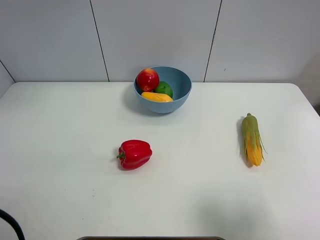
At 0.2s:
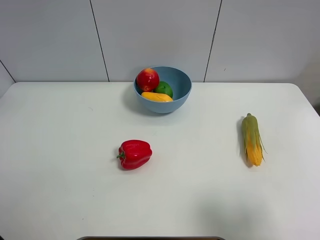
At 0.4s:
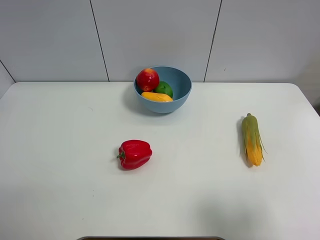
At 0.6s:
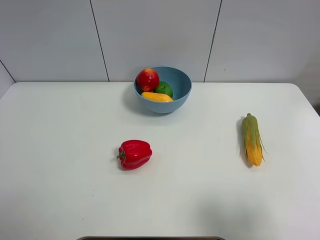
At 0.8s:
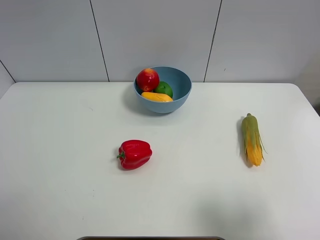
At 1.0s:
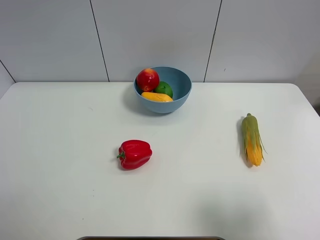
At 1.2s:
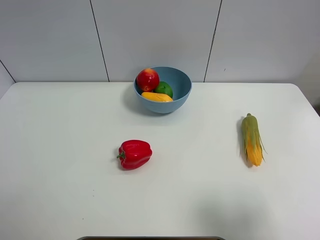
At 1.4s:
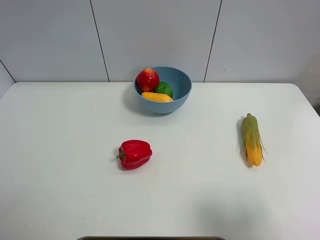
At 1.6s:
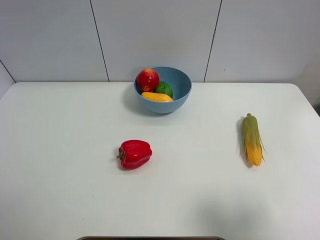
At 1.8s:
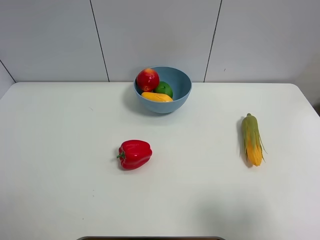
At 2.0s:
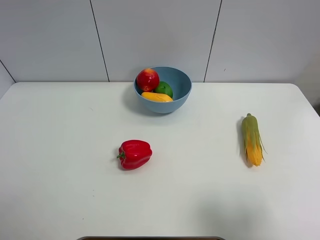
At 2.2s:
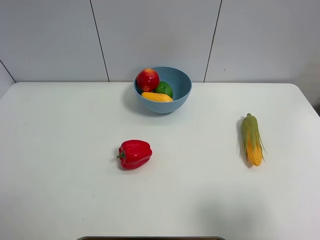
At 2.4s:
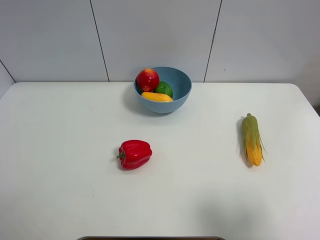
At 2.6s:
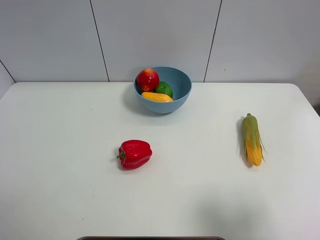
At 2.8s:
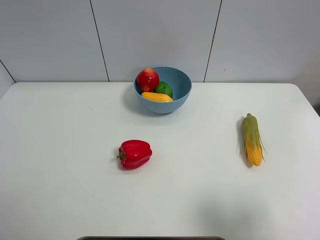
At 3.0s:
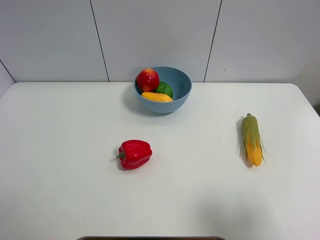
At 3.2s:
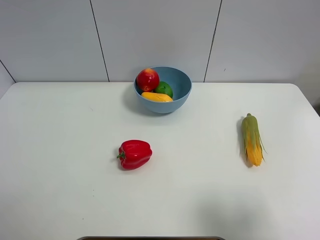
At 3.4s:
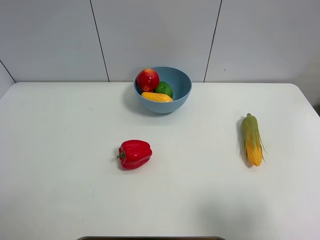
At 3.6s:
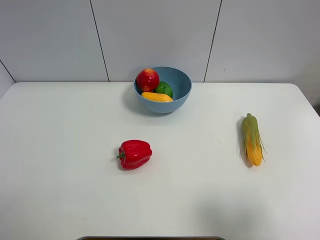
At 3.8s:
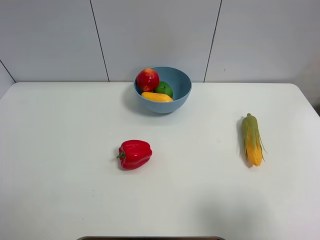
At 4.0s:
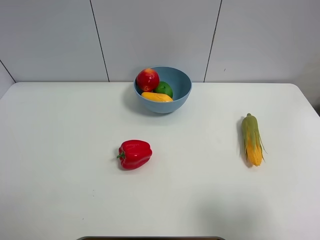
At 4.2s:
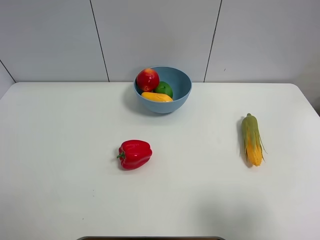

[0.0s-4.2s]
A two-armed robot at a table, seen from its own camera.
Task of the whole recording: Put the three fruits on the table into a bowl.
0.0s to 1.4s: The left gripper heads backward and to the left, covering approximately 30 cm.

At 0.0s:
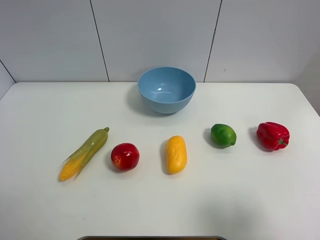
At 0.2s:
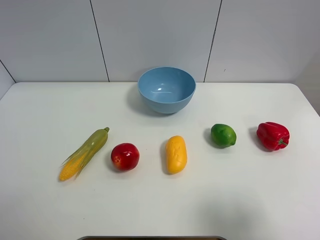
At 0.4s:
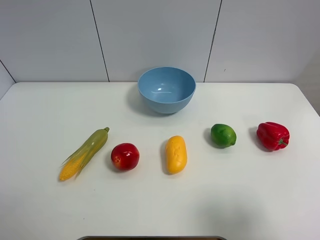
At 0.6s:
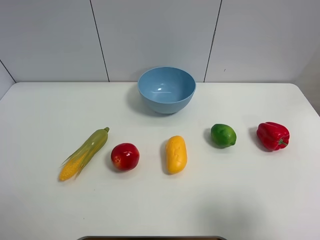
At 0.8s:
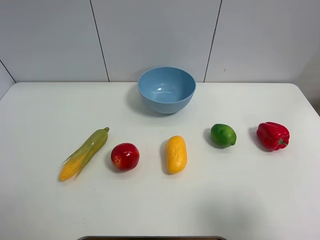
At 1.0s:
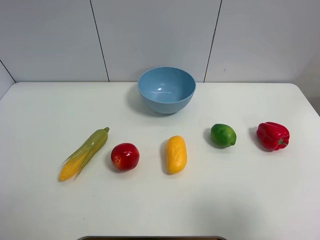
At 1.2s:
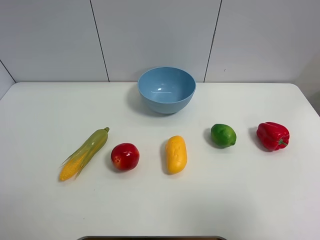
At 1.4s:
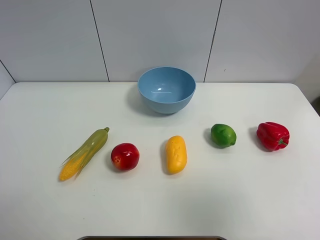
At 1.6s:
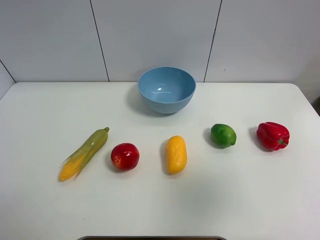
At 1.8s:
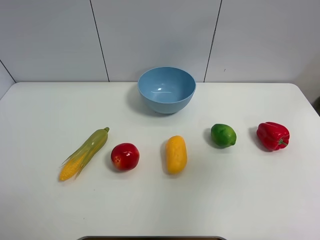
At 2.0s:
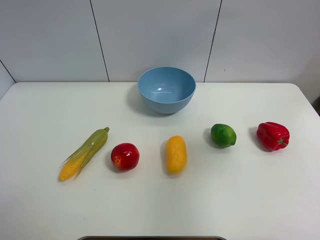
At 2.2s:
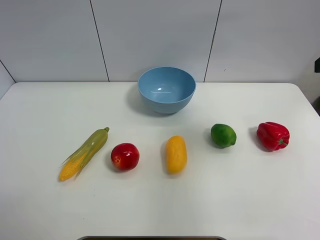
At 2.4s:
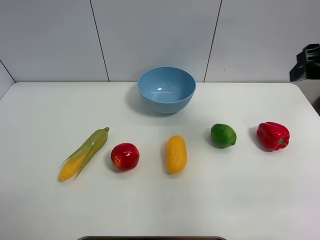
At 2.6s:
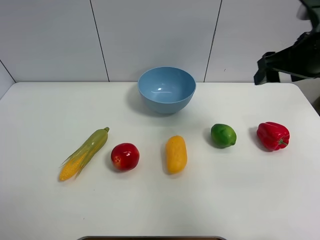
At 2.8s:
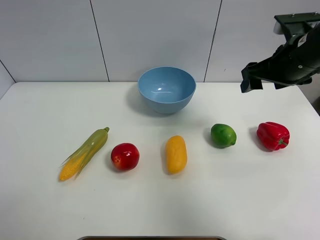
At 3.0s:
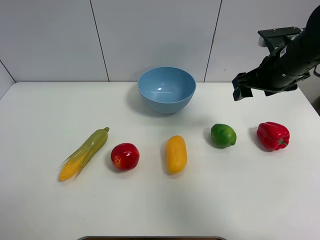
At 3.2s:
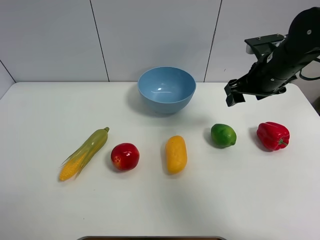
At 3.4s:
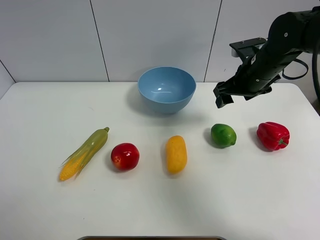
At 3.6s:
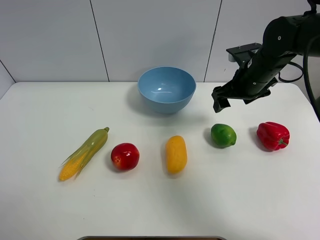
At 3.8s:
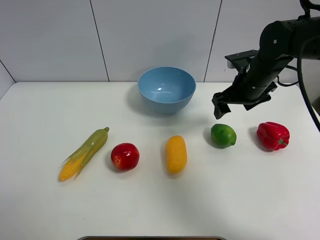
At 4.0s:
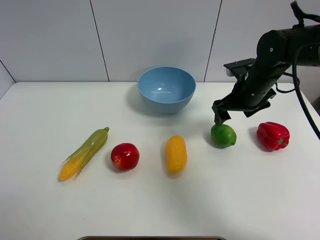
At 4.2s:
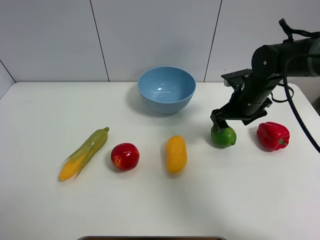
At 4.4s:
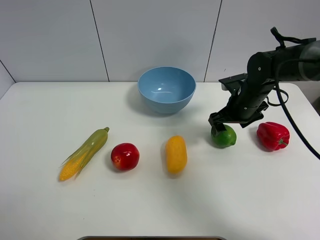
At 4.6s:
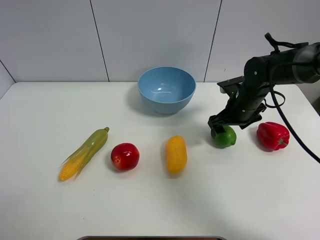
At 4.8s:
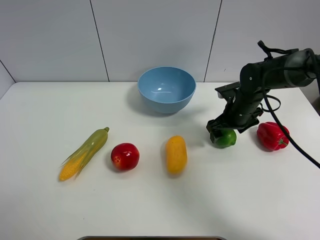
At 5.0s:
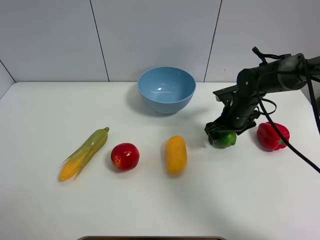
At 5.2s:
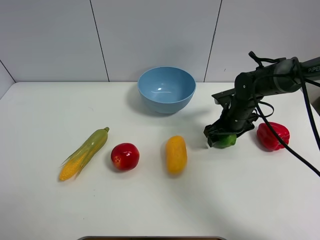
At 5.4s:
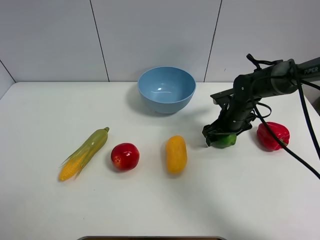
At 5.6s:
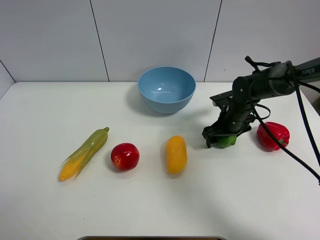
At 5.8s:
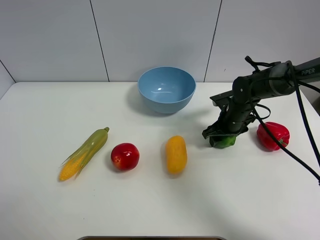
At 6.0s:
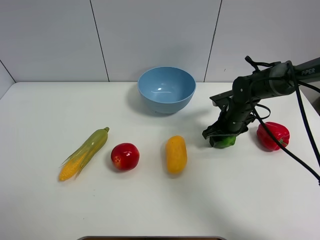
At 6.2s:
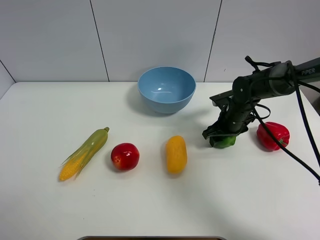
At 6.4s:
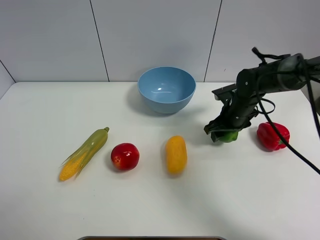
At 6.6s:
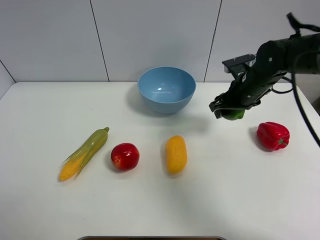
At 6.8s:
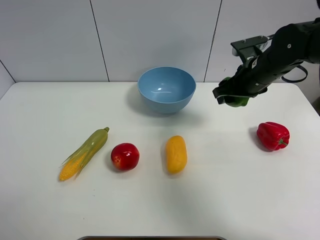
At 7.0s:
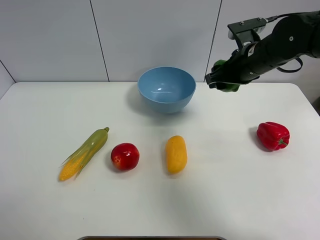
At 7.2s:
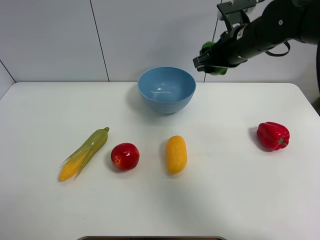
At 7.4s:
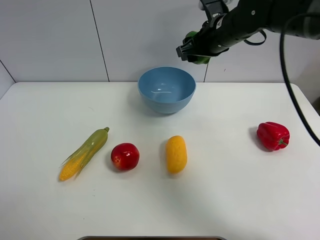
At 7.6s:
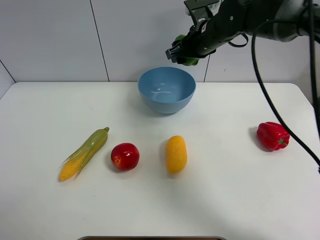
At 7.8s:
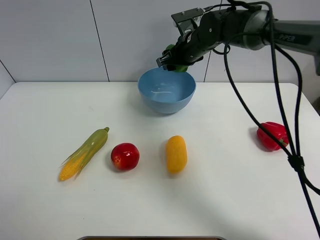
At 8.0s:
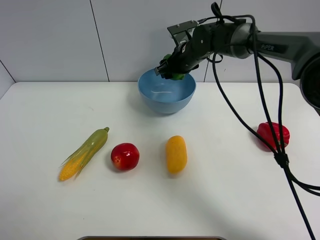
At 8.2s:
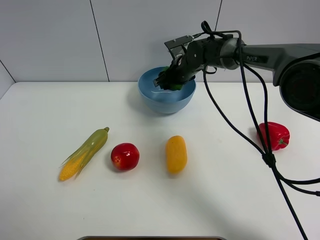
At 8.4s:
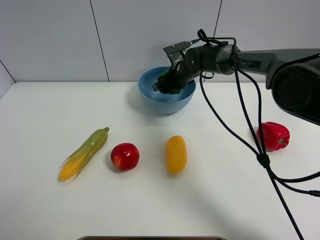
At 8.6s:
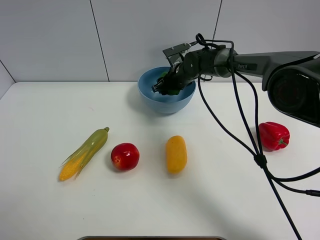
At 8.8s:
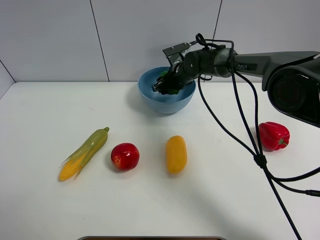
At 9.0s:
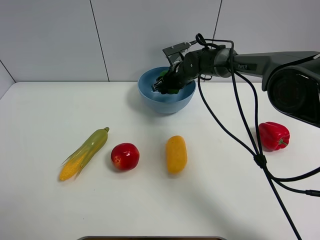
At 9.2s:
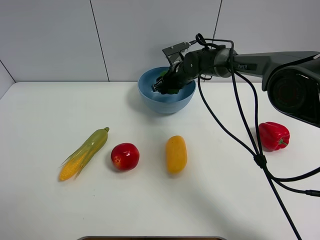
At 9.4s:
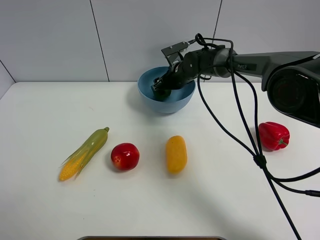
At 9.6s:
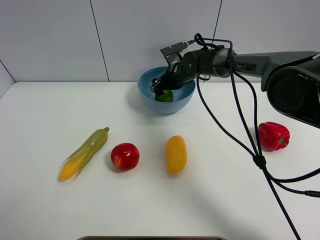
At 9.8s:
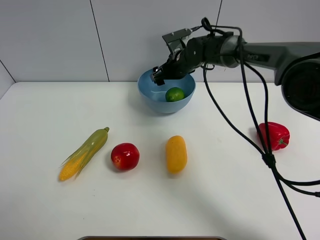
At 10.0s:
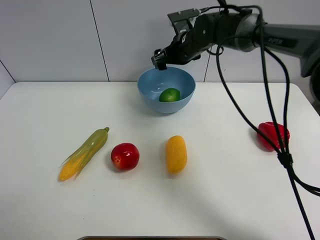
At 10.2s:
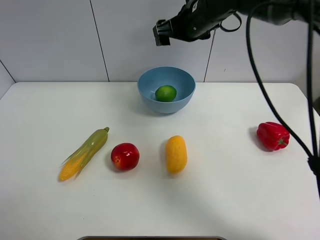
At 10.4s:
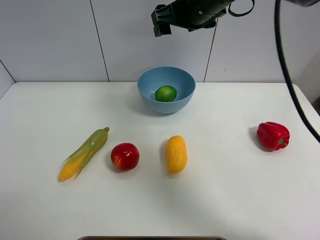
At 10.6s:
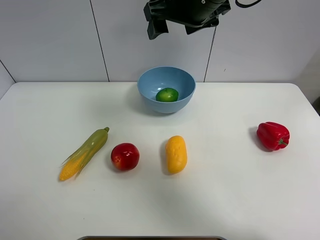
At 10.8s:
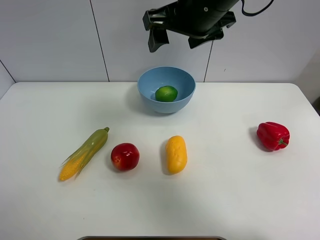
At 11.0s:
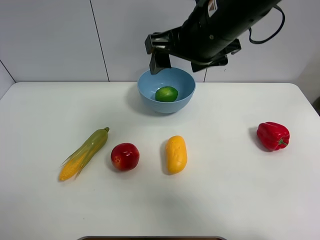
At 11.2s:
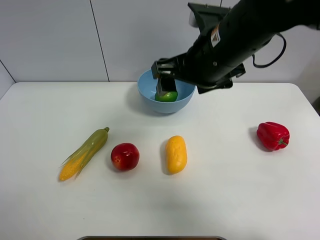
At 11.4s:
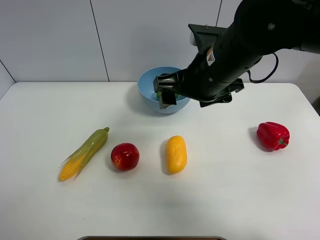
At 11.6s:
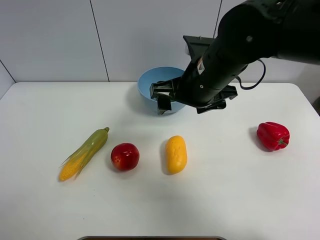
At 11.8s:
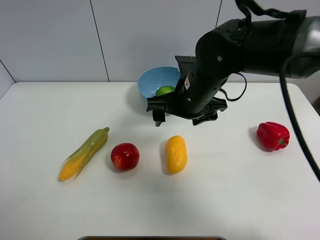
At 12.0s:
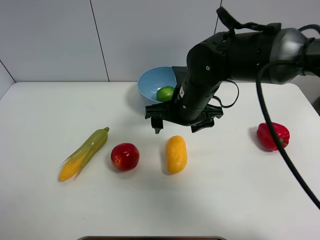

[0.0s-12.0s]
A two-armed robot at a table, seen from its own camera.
Task of the whole recording: Put the three fruits on the table into a bowl.
Step, 0.0s to 5.8s: Grasp the green lemon with right gripper.
Step, 6.0s to 9.6s: Place the green lemon in the blue bowl with right gripper.
0.0s to 1.6s: The right gripper travels upward and forward by about 10 cm.
1.6s to 3.0s: The right gripper travels forward and downward by about 30 cm.
3.0s to 4.4s: The right gripper moves downward, roughly 10 cm.
4.4s to 6.0s: The right gripper is displaced downward by some 5 cm, and closes.
6.0s to 7.6s: The right gripper travels upward and to the left by about 20 cm.
7.6s to 9.0s: The right gripper moves downward and forward, some 15 cm.
9.0s to 10.4s: The right gripper moves upward and backward, approximately 25 cm, and opens its fingers.
10.4s to 12.0s: The right gripper shifts roughly 15 cm downward and backward.

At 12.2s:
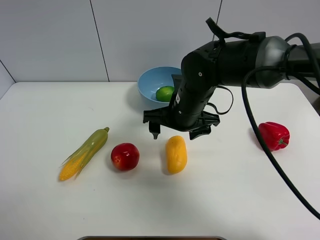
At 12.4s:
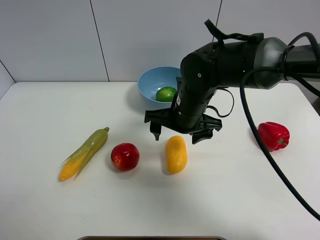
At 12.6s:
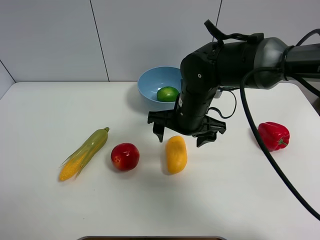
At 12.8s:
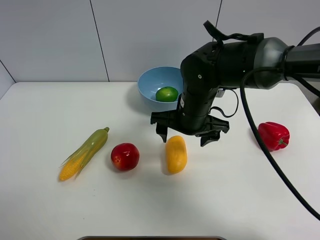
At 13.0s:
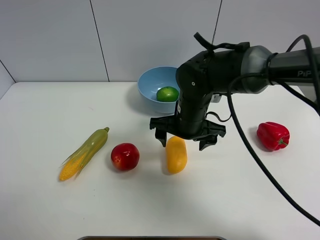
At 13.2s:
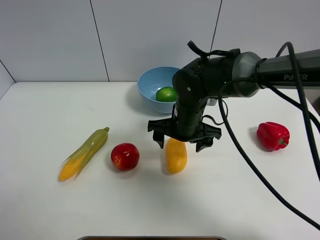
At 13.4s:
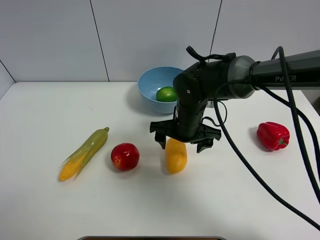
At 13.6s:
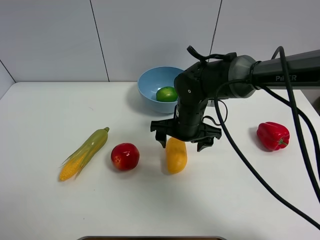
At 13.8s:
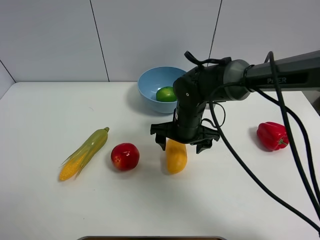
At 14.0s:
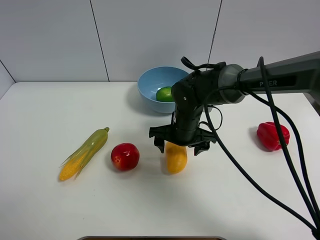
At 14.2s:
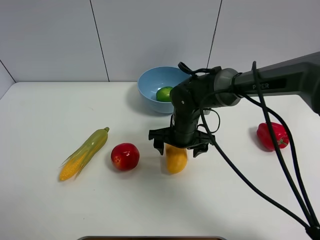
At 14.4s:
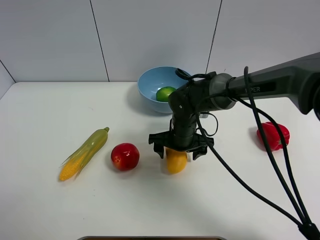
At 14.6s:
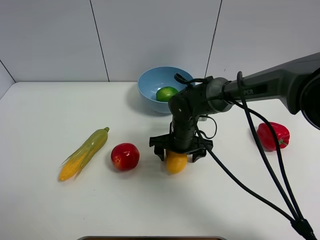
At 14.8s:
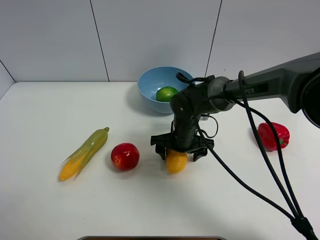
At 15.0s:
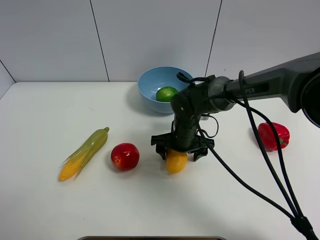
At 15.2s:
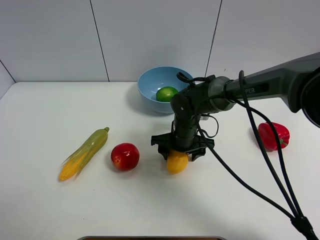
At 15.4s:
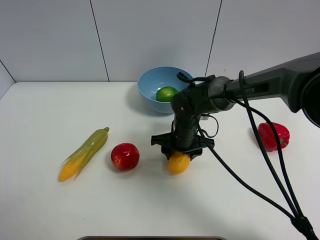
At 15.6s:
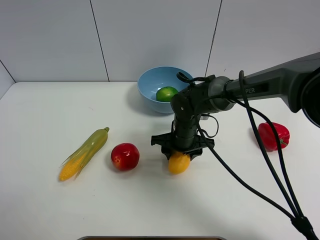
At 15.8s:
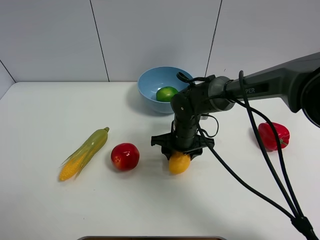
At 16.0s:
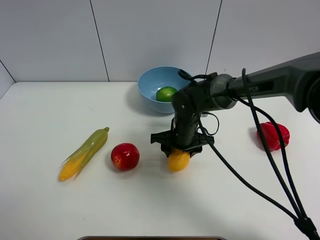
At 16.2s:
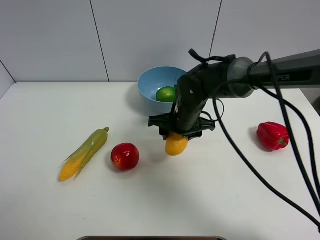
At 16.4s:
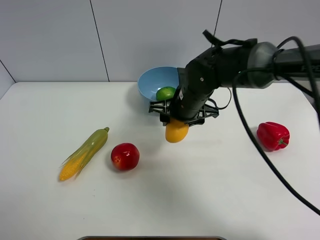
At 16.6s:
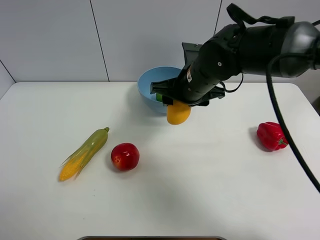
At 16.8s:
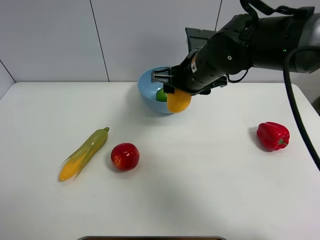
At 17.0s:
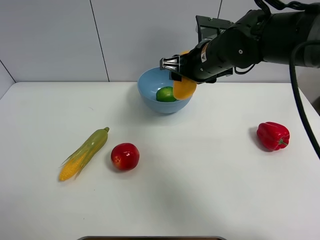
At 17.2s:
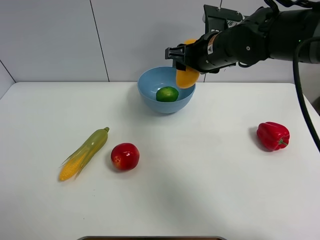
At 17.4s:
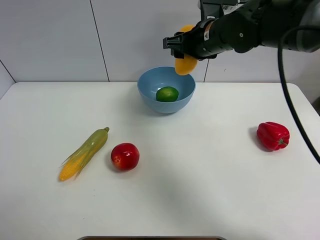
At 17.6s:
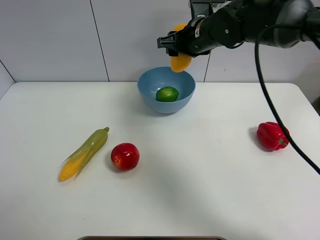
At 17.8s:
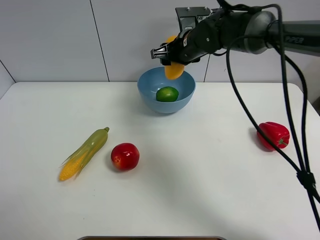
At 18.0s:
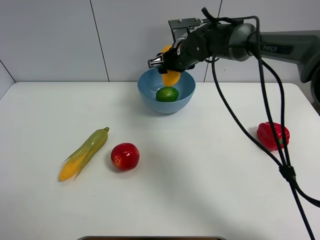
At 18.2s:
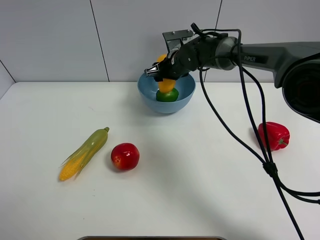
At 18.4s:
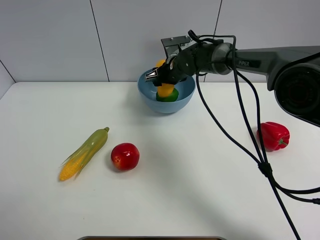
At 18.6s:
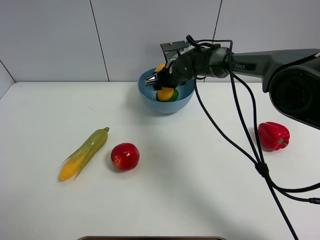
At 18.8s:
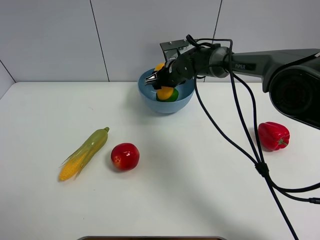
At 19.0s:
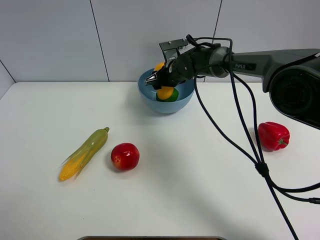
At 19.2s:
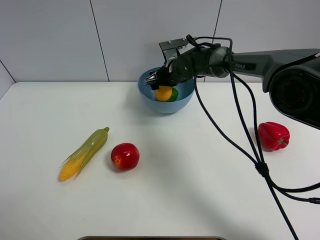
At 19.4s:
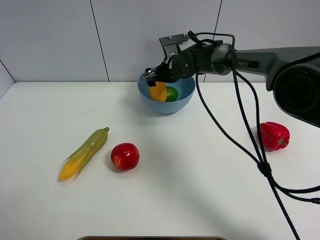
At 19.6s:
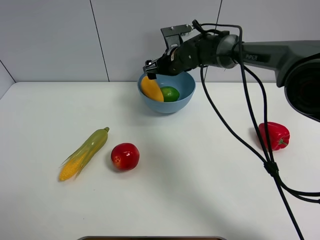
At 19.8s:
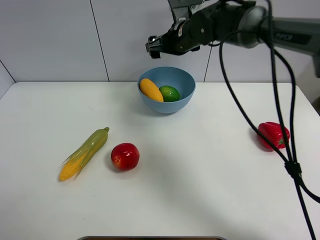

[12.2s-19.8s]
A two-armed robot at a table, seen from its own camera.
Task of the whole recording: Put the three fruits on the table into a bowl.
Step, 12.2s to 15.4s: Grasp the mango with right gripper.
Step, 15.6s to 19.6s: Place the mango in the blue bowl with right gripper.
12.2s to 13.8s: The right gripper heads downward, covering some 5 cm.
13.8s to 15.2s: The right gripper closes.
15.2s to 16.8s: The right gripper shifts roughly 15 cm upward.
16.8s to 18.2s: The right gripper is displaced forward and downward by roughly 15 cm.
18.2s to 19.8s: The right gripper shifts about 10 cm upward, and opens.
